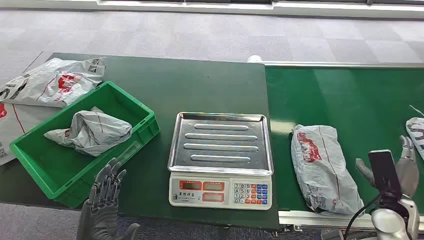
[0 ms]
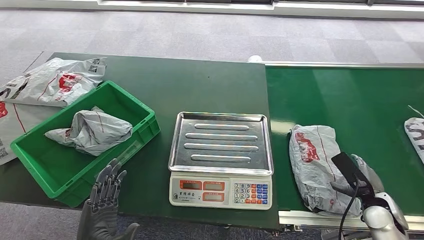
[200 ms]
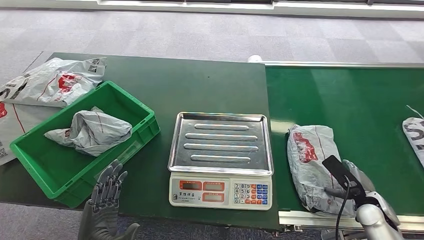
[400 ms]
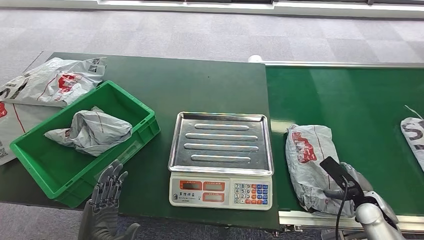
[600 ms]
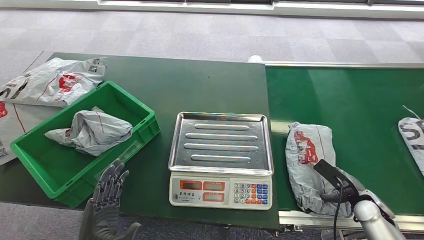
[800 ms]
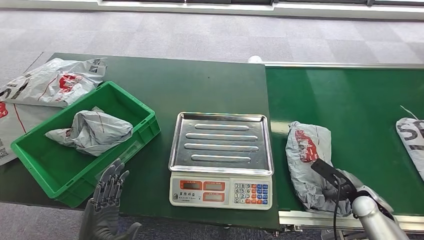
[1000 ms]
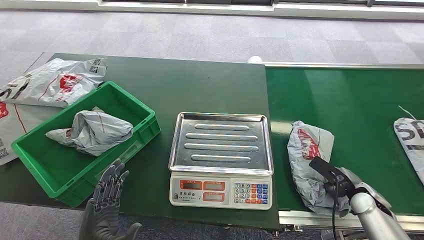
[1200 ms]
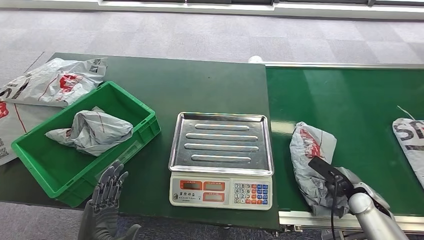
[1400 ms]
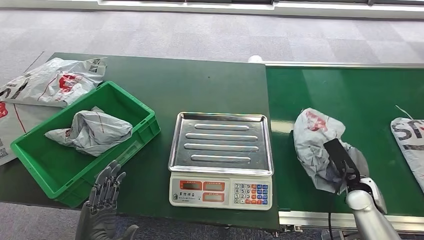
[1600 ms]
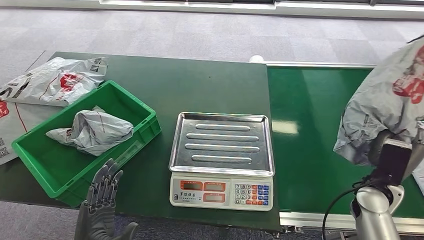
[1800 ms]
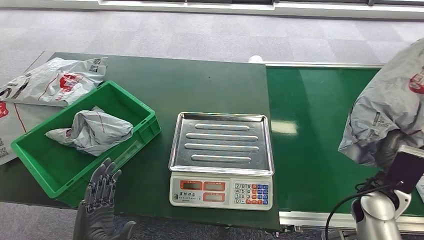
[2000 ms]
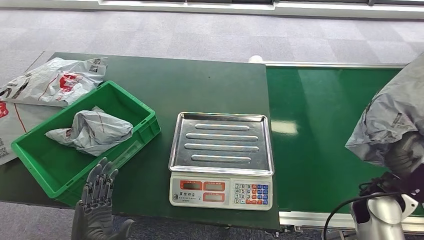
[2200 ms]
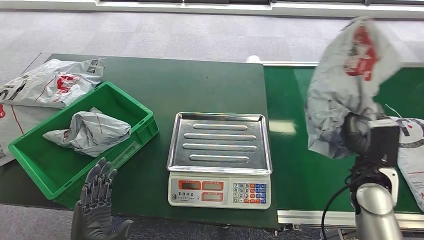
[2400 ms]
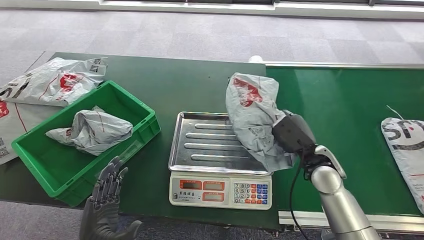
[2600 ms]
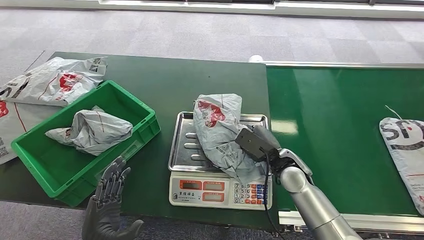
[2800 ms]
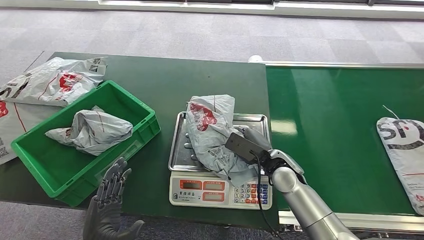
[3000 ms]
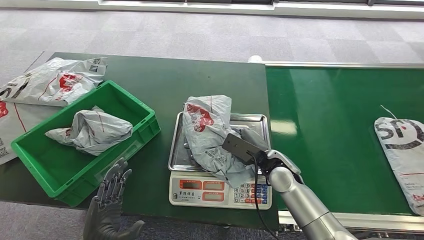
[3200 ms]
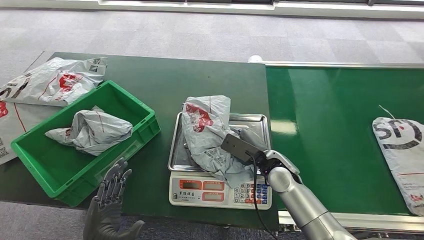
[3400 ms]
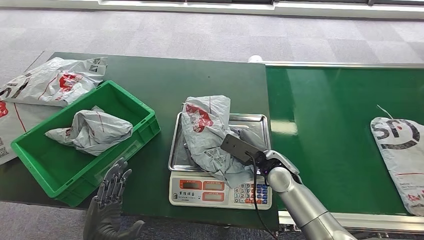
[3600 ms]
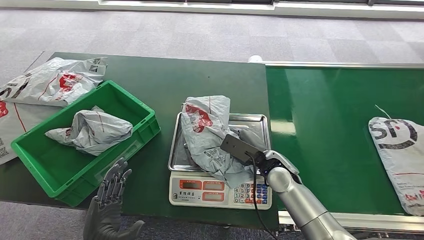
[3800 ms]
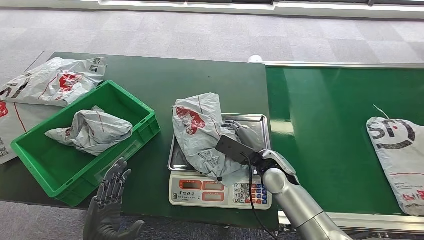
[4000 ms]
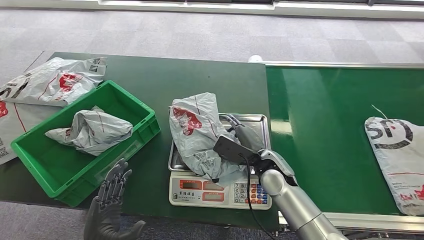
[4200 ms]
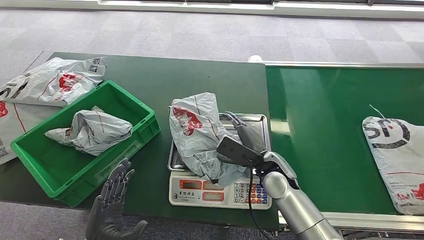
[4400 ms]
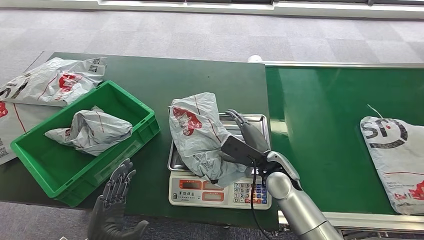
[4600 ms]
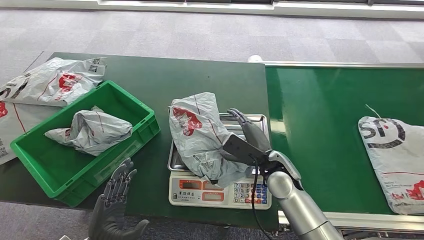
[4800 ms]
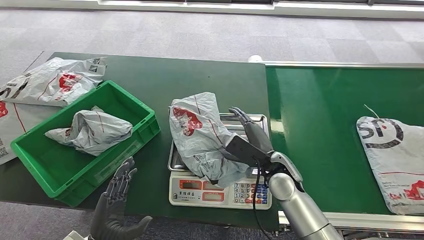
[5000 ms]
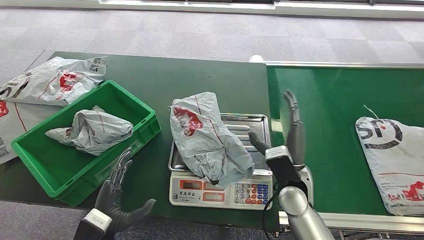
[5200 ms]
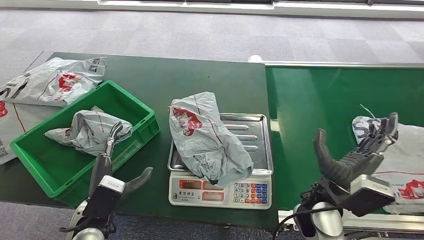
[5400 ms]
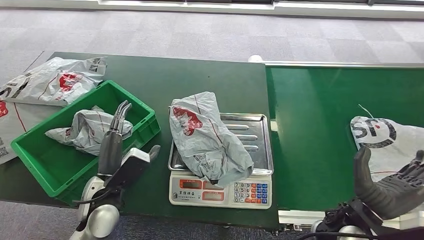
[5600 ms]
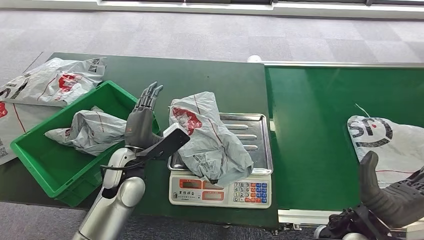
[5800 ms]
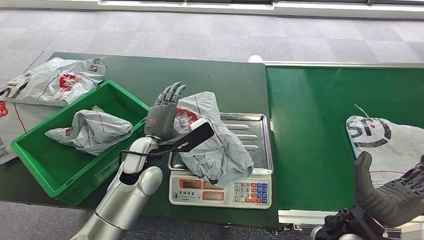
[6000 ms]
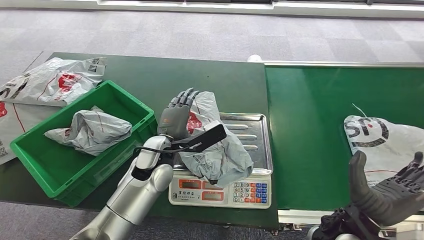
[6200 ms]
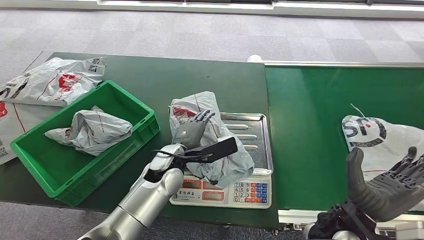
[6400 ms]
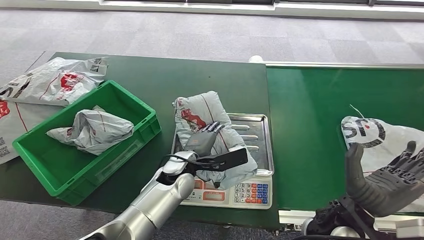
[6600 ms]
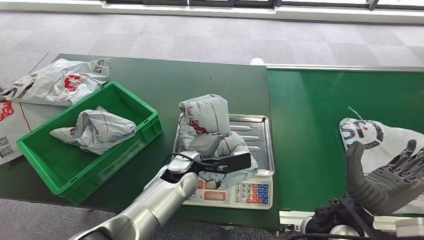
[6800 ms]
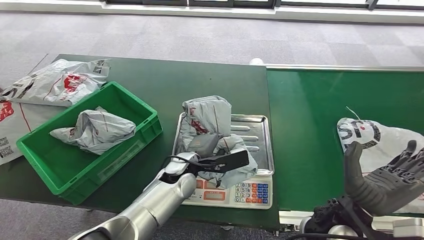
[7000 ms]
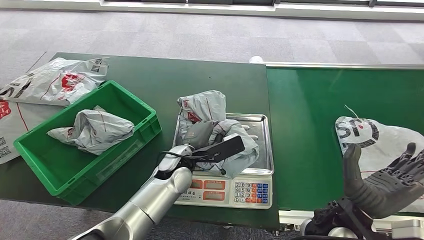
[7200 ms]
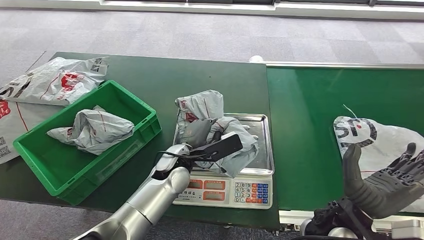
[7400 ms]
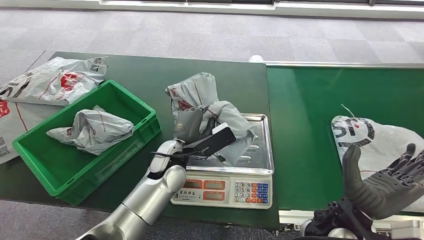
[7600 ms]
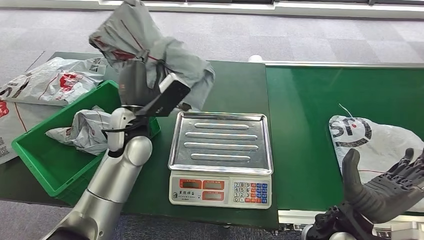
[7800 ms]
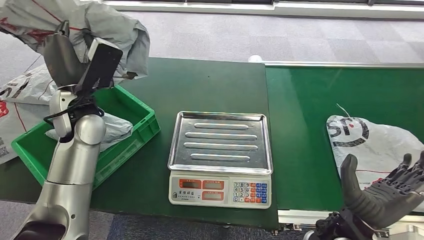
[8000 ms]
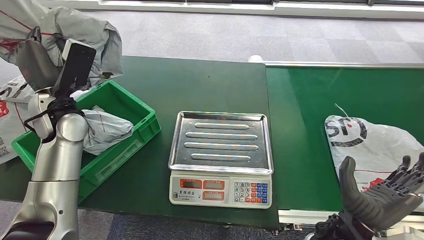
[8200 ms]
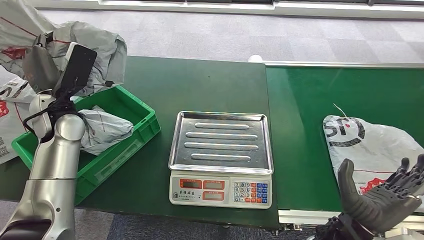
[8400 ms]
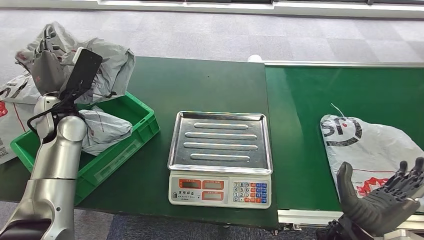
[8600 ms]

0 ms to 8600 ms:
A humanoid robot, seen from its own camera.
Step, 0 ms to 1600 ms: Pick up the package from the conveyor belt.
Step, 1800 ms to 4400 ms: Place the package onto the inbound machine.
Step, 4600 ms to 7600 ms: Pick up the package from the inbound machine.
Step, 7800 ms to 8600 ms: Place the package into the parcel locker.
2800 ms to 4400 ms: The right hand shifts roughly 5 cm to the left.
4400 ms to 5800 ms: The right hand goes about 15 cm backward and to the right. The left hand moves forward and upward, about 20 cm.
